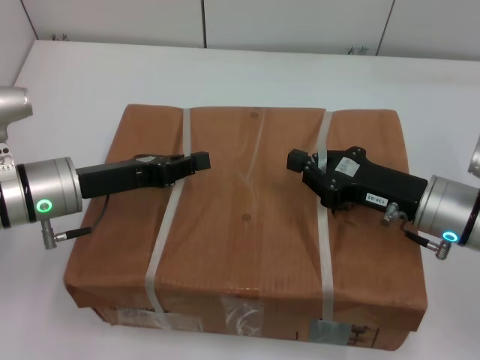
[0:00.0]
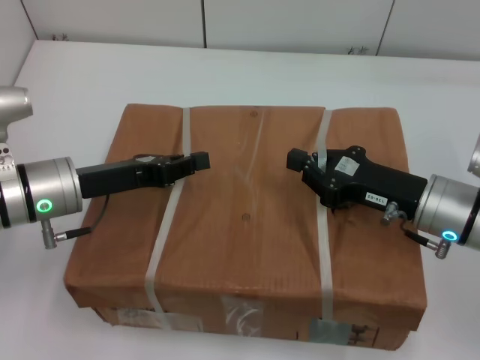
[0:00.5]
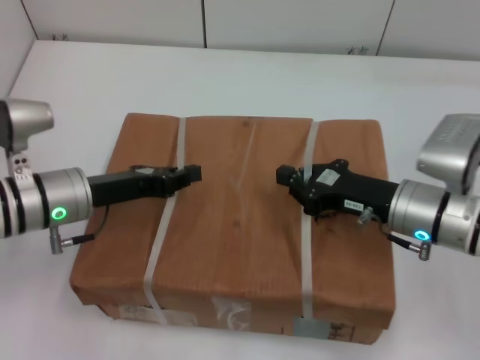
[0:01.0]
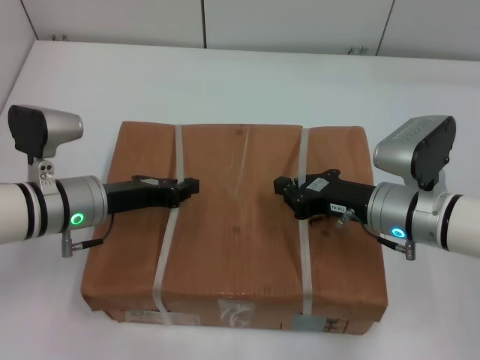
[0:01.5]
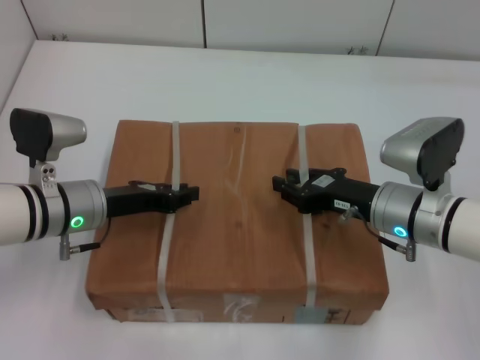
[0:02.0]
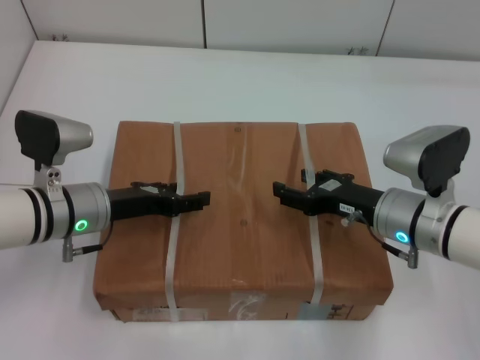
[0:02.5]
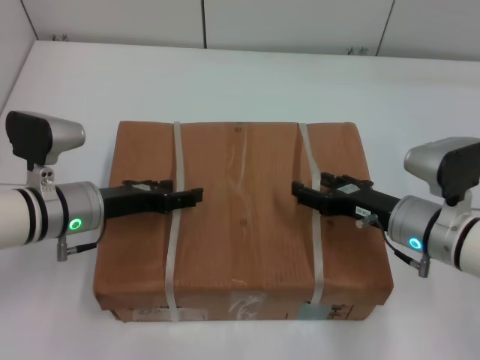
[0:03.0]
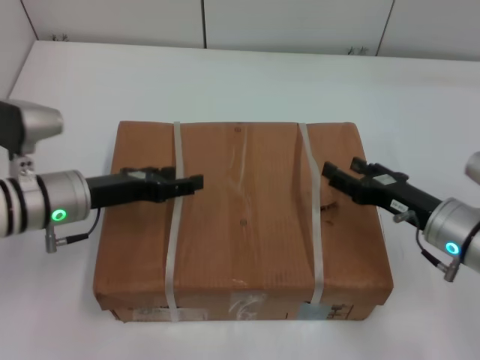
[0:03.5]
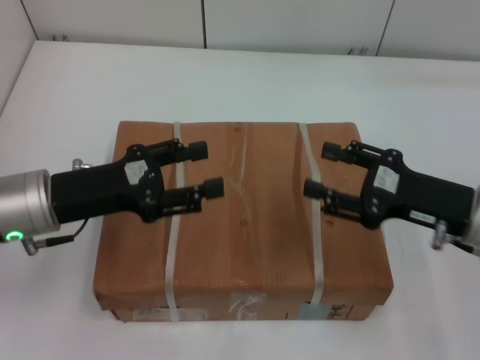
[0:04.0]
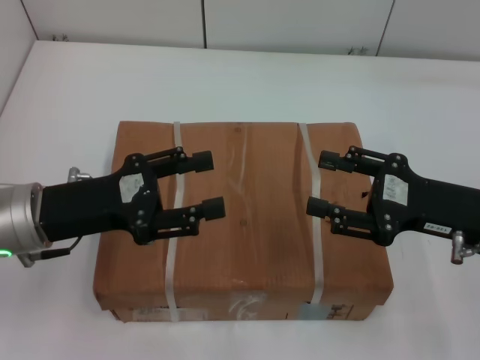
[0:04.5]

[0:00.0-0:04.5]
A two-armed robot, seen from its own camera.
Task of the whole recording: place the box on the table with both arms.
Step, 0:00.0 to 0:01.5: Place the box on the table with left gripper.
Step, 0:00.0 to 0:01.5: Place the box on the table with right gripper.
Step, 0:02.0 to 0:02.5: Loosen the box on the table with left gripper.
Step, 0:02.0 to 0:02.5: Loosen the box on the table with right gripper.
0:02.0 to 0:04.5: The right gripper moves to the right and upward, roughly 10 cm, and opens its fingers; the left gripper shifts roughly 10 cm upward and backward, and opens.
